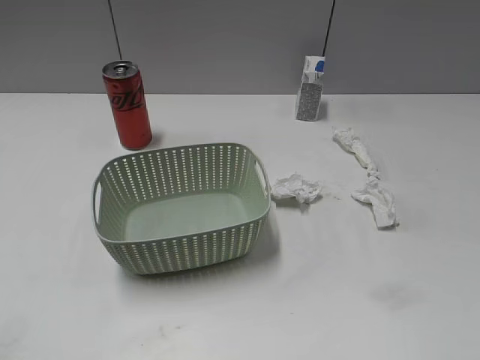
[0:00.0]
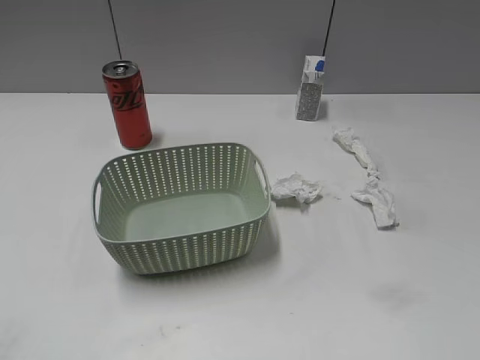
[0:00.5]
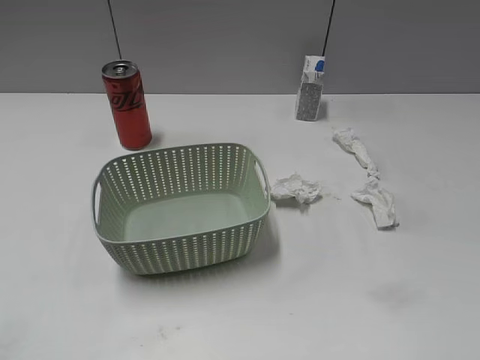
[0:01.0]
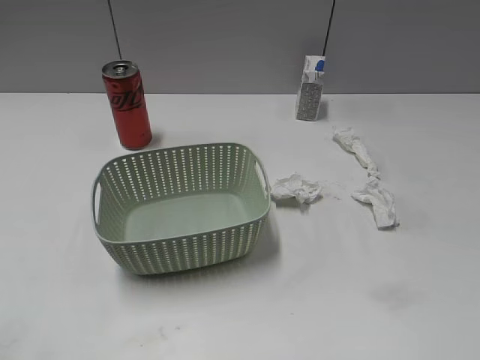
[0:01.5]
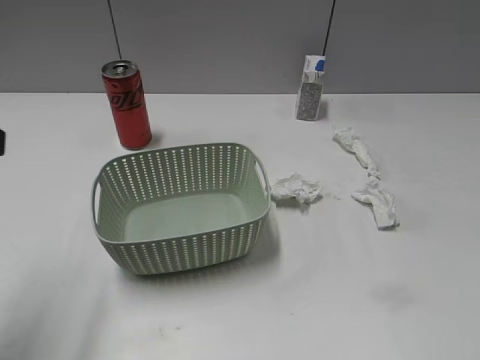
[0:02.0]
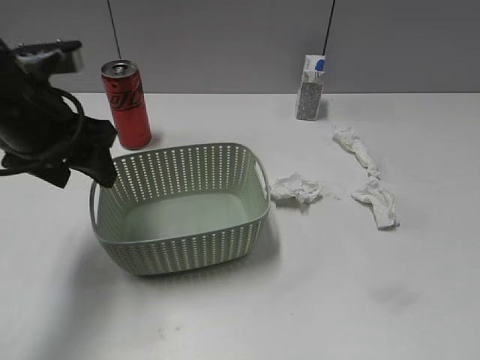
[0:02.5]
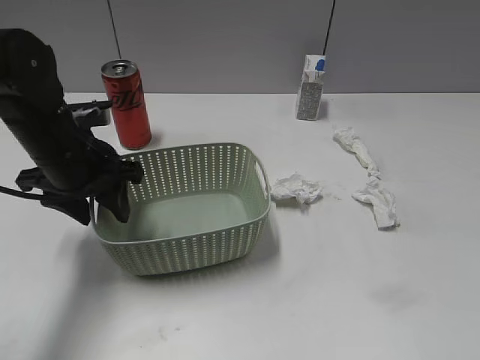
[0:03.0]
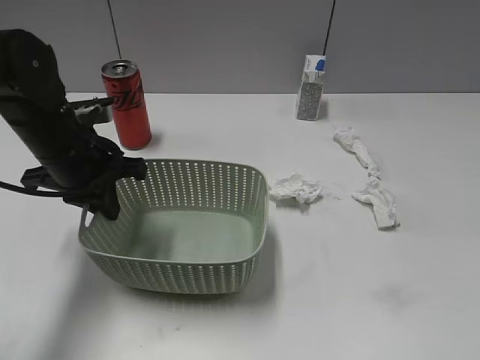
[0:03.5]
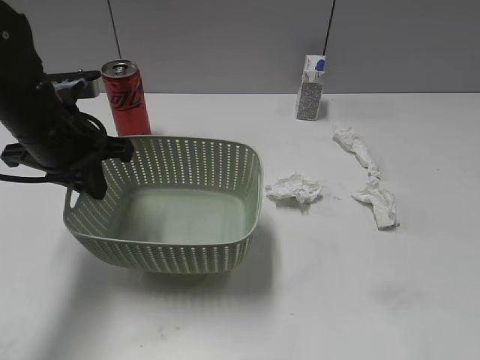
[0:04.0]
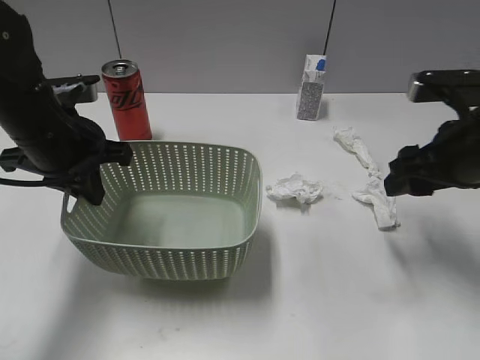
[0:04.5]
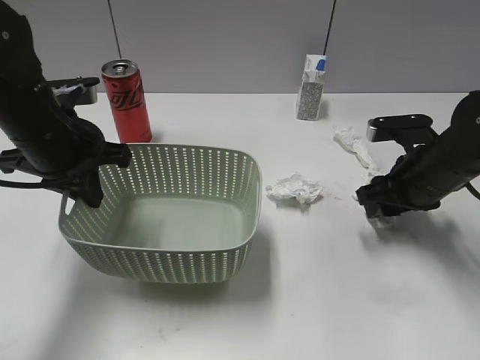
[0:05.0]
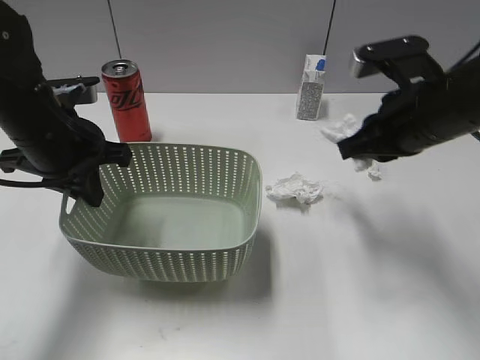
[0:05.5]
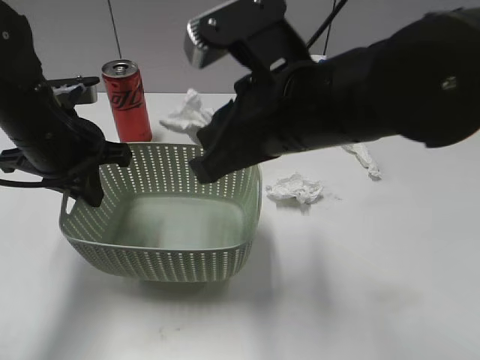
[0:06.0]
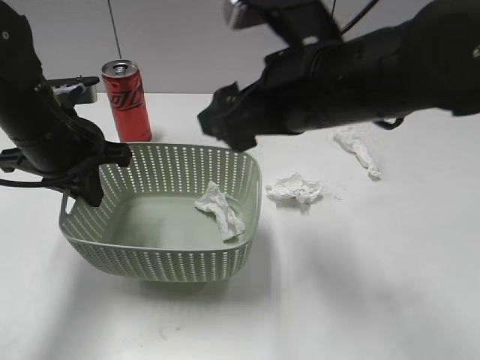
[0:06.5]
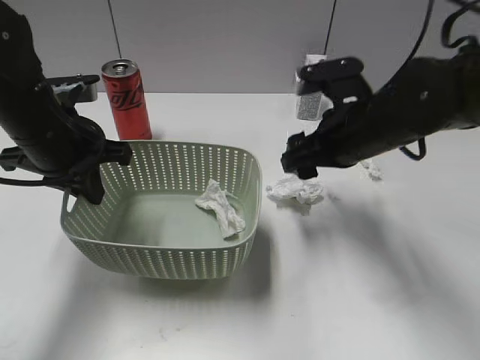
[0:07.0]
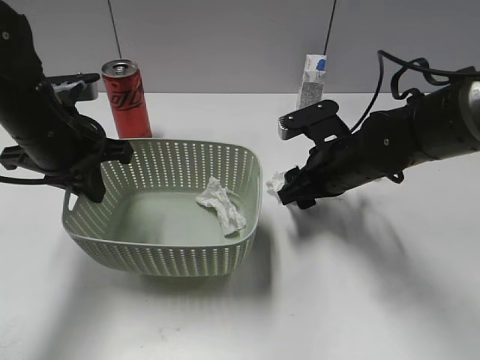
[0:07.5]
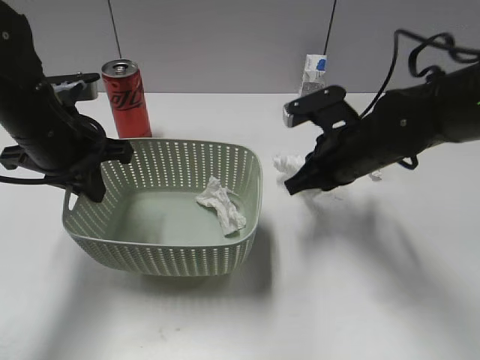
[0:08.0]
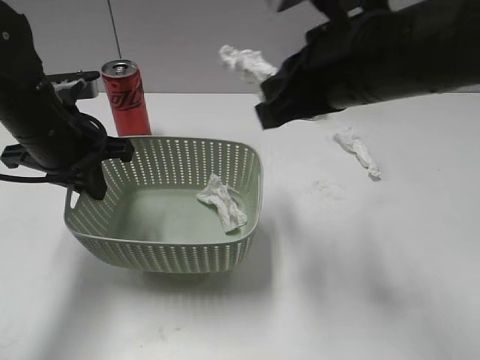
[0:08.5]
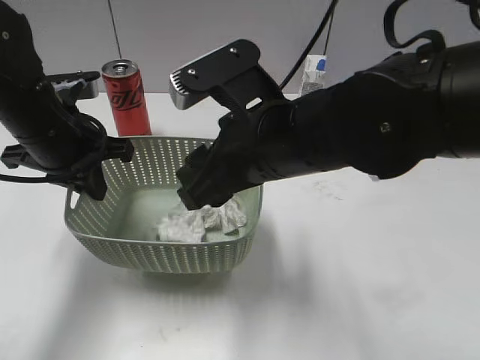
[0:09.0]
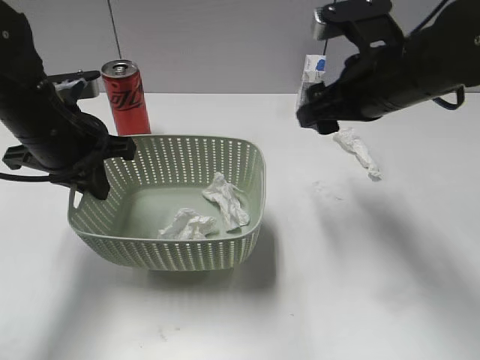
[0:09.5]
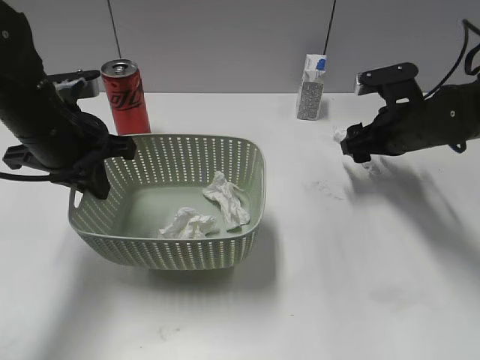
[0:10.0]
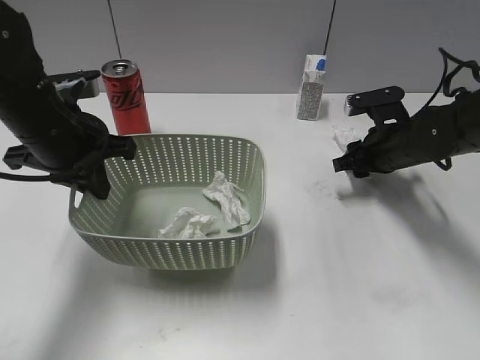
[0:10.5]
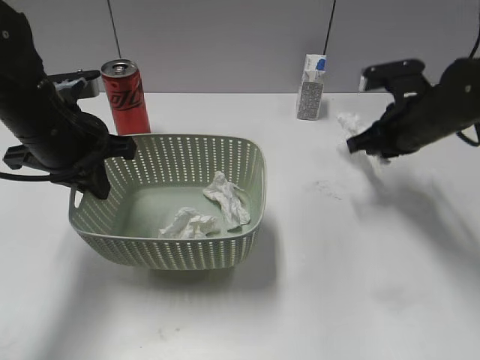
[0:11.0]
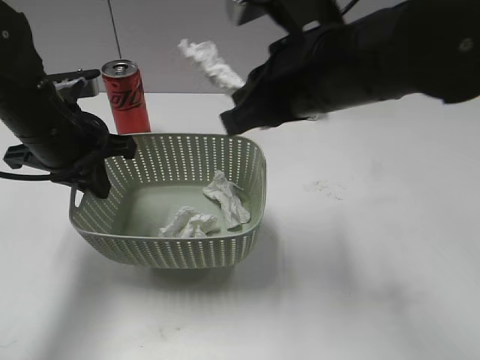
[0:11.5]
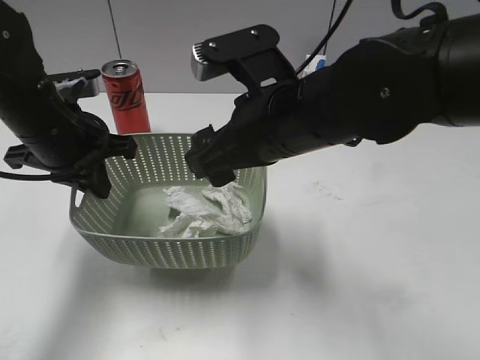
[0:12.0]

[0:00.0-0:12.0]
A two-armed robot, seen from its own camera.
Step, 0:02.0 to 0:03.5: Grasp the basket with left gripper.
Step, 0:04.5 to 0:05.0: Grasp the waste paper with right gripper.
Step, 0:05.5 to 0:06.0: Place the waste paper in the basket with right gripper.
Step, 0:06.5 to 0:08.0: Grasp the waste paper with right gripper.
Step, 0:08.5 to 0:09.0: Place the waste paper in the basket with right gripper.
Step, 0:09.5 to 0:11.0: Grasp the waste paper with right gripper.
Step, 0:11.5 to 0:12.0: Place the waste paper in the basket with right gripper.
0:02.0 to 0:04.0: The right gripper moves forward, about 10 cm; the left gripper shifts some 20 cm forward, downward and to the right, and closes.
0:04.0 to 0:06.0: The right gripper heads to the left and forward, covering approximately 25 cm, and closes up.
0:06.0 to 0:08.0: The right gripper shifts about 20 cm downward, forward and to the right, and opens, then closes once more.
0:08.0 to 0:10.0: The right gripper goes about 10 cm to the right and forward, and opens its fingers.
0:10.0 to 0:12.0: The right gripper moves up and down over some 20 cm, changing direction 2 times, and closes and opens again.

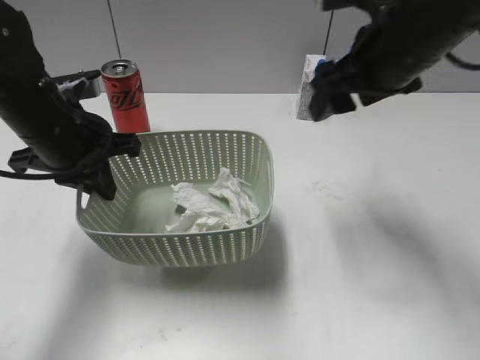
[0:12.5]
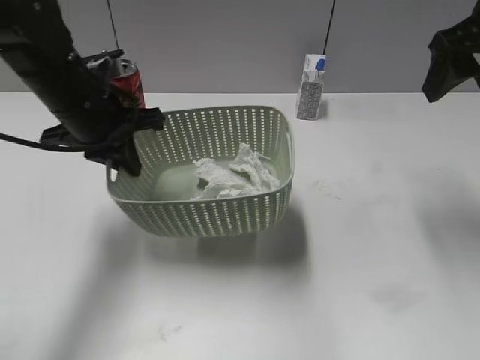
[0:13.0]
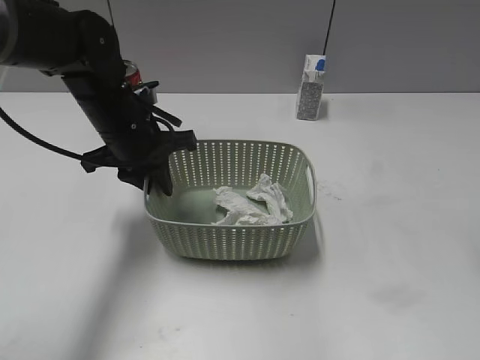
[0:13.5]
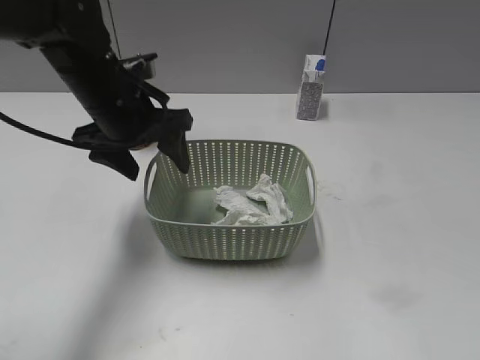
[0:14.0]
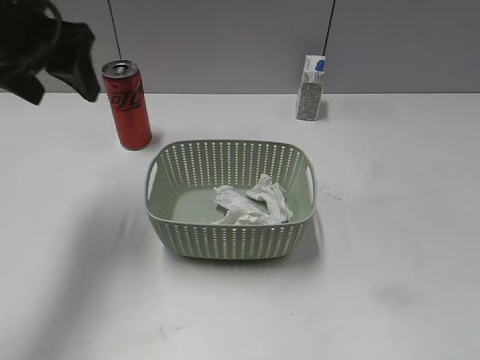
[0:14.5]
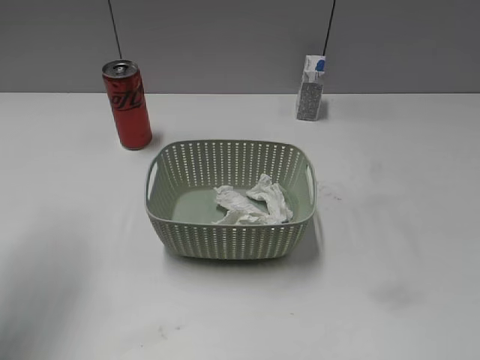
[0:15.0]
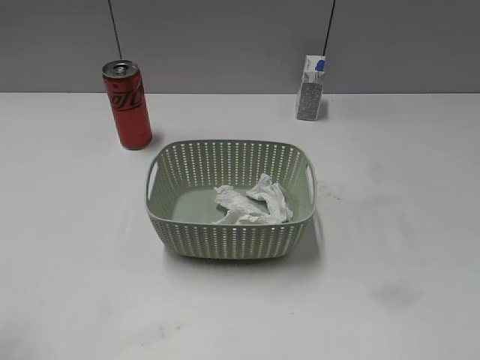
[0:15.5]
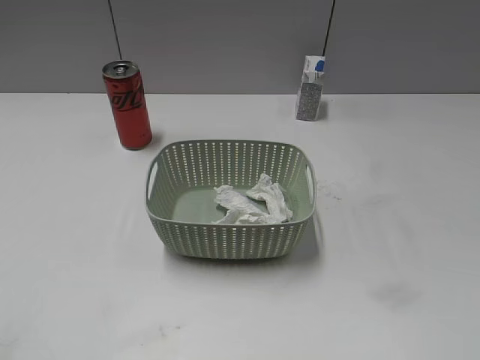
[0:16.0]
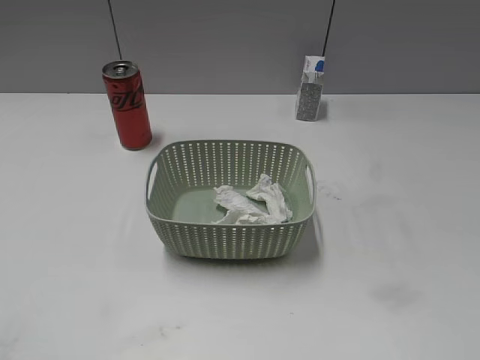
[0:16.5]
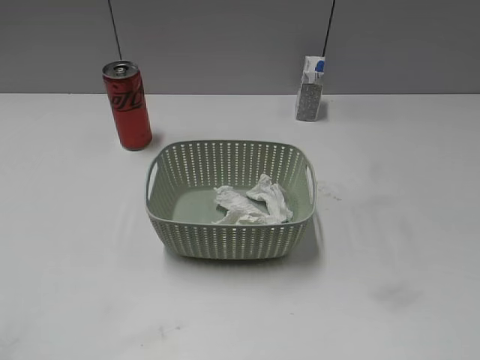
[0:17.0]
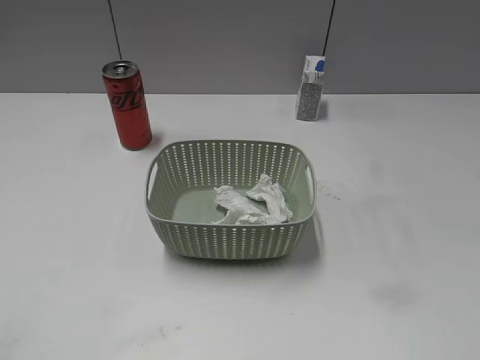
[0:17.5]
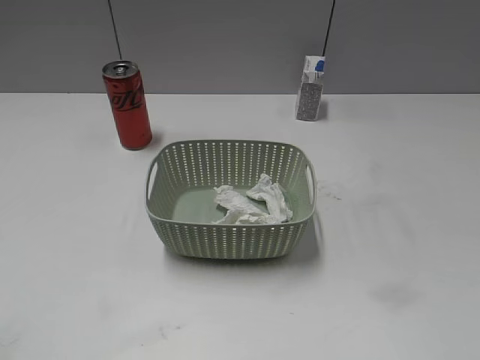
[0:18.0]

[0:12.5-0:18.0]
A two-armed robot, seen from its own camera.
Step, 0:12.5 to 0:13.5: Place the basket on the table with left gripper.
0:12.5 to 0:14.5: The right gripper is displaced backward and to the right by about 35 cm; the left gripper is displaced upward by approximately 10 cm, and opens.
0:14.5 to 0:16.0: The left gripper moves backward, about 30 cm.

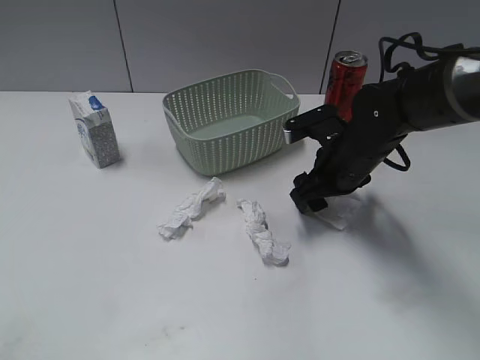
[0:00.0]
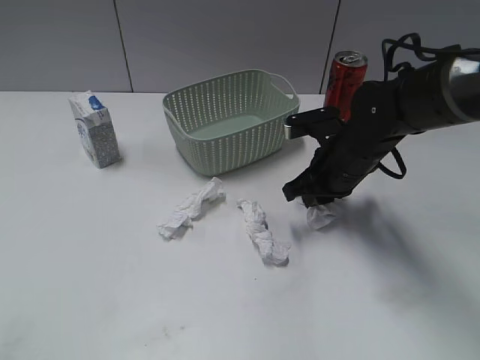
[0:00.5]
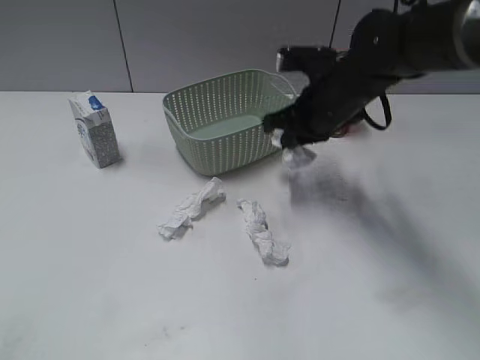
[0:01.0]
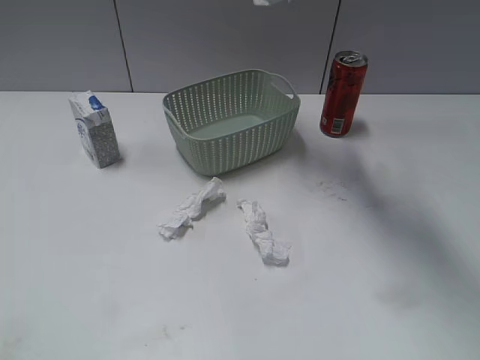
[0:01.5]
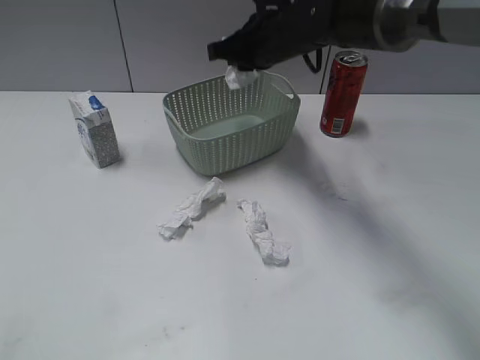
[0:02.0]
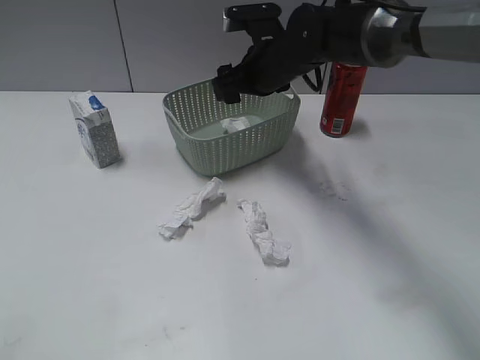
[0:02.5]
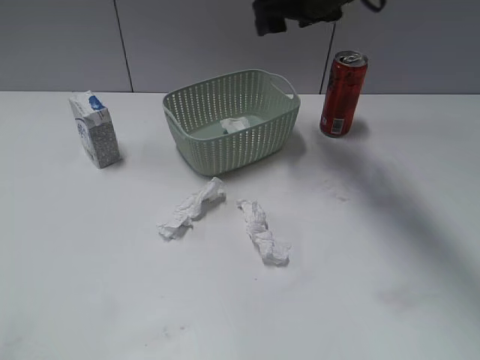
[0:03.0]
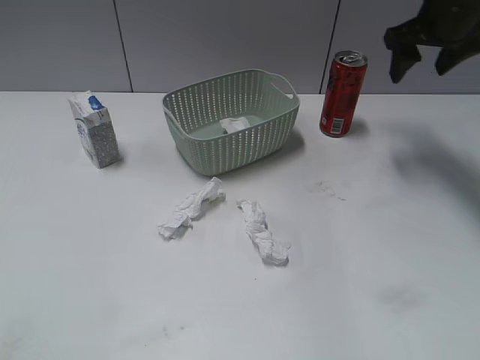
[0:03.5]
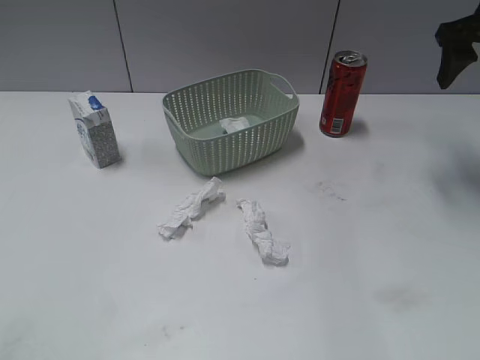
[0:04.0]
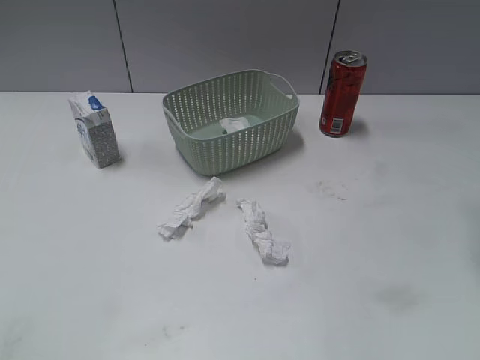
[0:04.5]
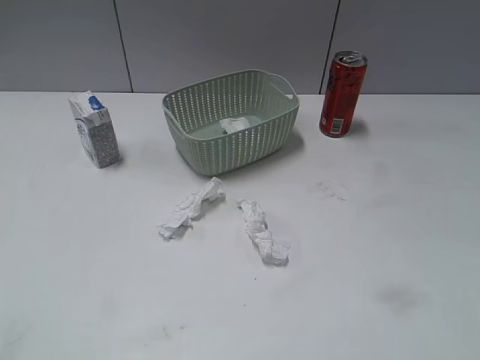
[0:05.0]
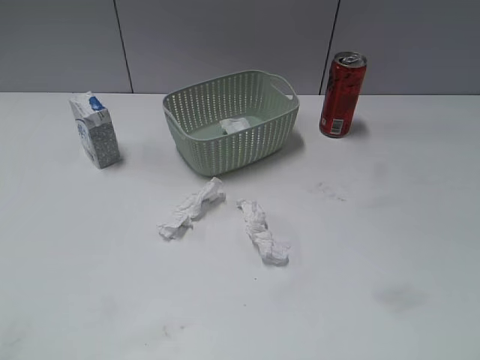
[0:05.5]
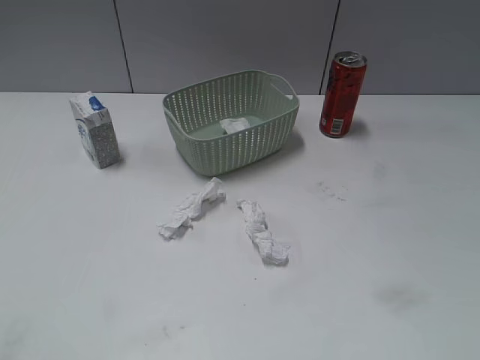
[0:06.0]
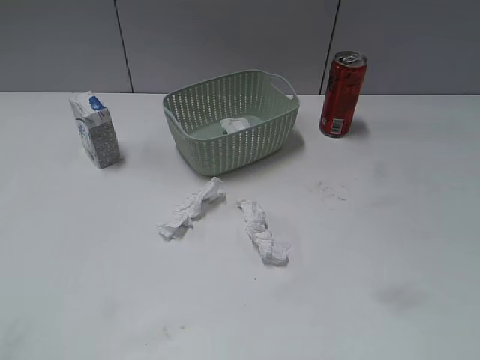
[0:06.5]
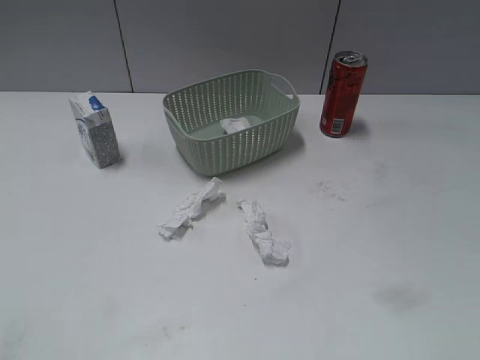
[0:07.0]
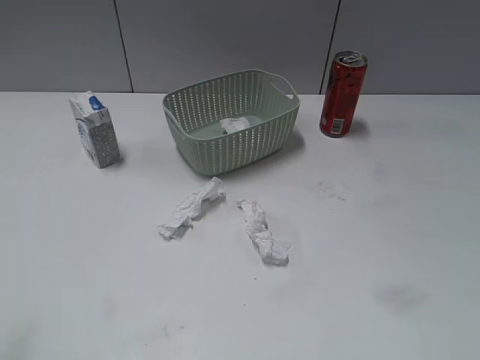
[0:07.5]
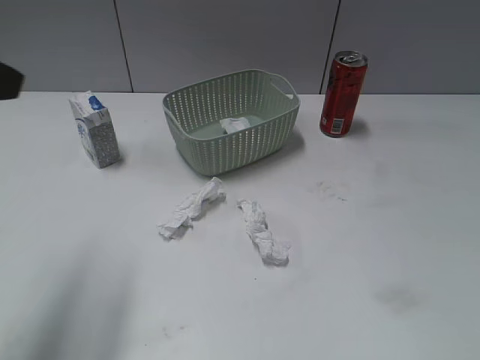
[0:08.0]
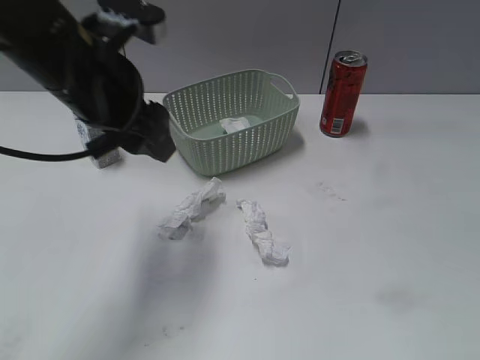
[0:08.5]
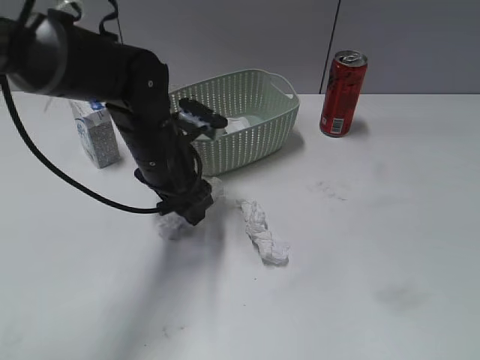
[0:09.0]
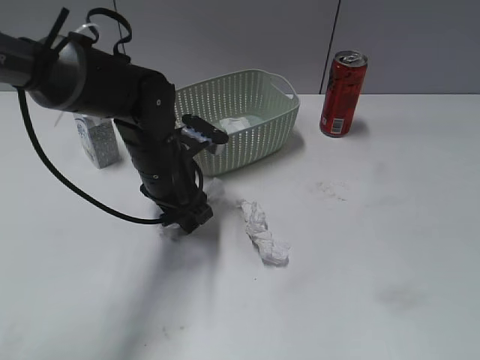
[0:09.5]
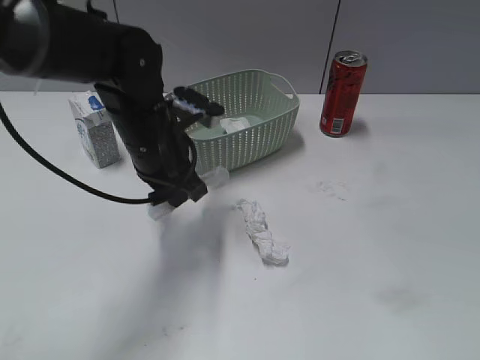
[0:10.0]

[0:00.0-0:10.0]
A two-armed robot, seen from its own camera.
Step, 0:01.0 to 0:02.0: Place the waste paper in the basket with right gripper.
Step, 0:02.5 to 0:09.5: Grasp the waste paper with left gripper.
0:00.0 to 0:02.0: The right gripper heads forward, upward and to the left, covering some 20 cm, and closes its fingers.
0:02.0 to 0:04.0: The right gripper is displaced to the right by approximately 25 cm, and opens its fingers.
0:04.0 to 0:06.0: The right gripper is displaced backward by about 40 cm.
0:06.0 to 0:08.0: The left gripper goes some 20 cm forward and to the right.
0:08.0 to 0:10.0: The left gripper moves downward, to the right and forward, roughly 30 cm, and closes.
